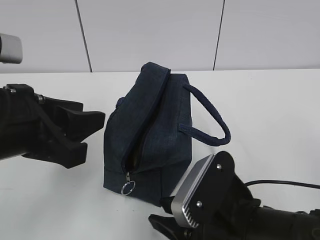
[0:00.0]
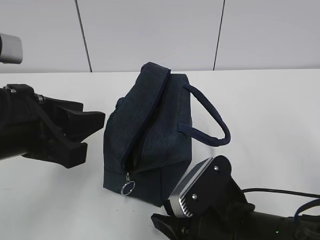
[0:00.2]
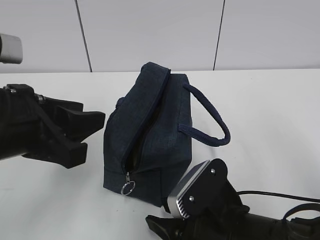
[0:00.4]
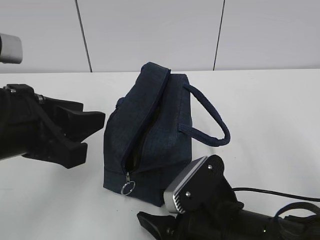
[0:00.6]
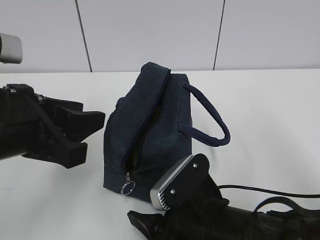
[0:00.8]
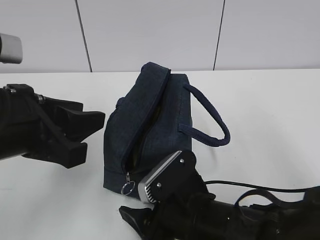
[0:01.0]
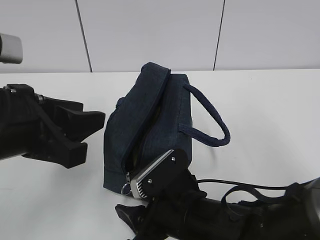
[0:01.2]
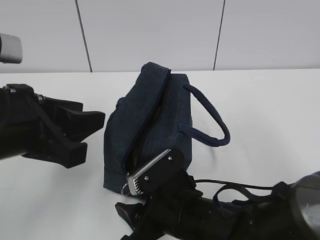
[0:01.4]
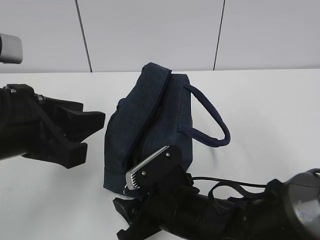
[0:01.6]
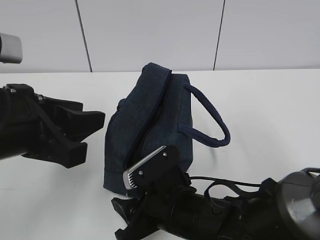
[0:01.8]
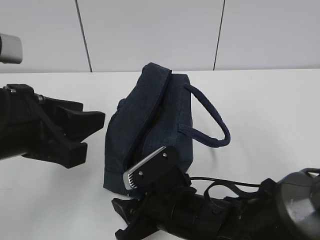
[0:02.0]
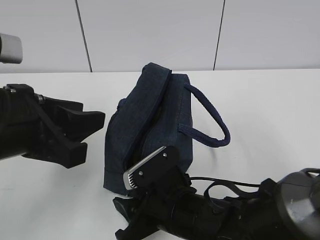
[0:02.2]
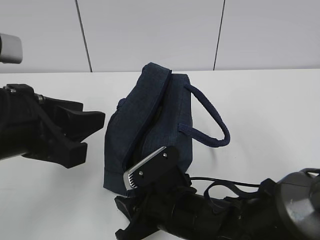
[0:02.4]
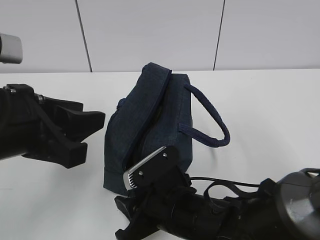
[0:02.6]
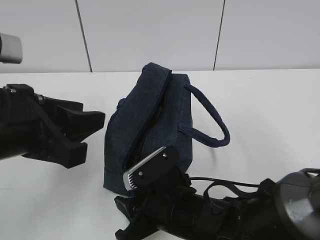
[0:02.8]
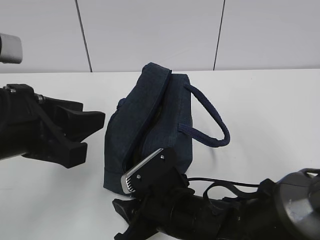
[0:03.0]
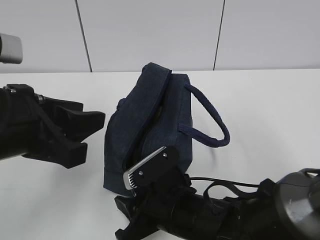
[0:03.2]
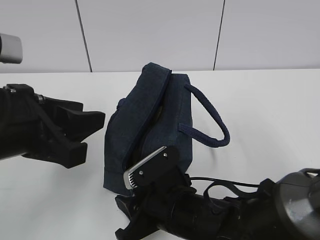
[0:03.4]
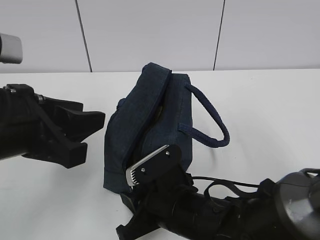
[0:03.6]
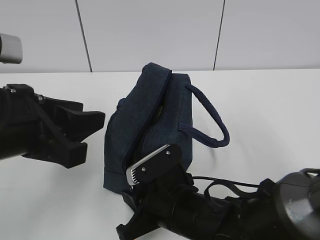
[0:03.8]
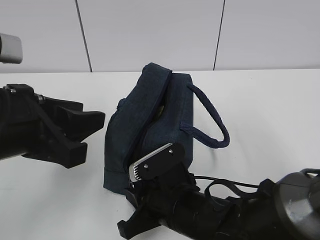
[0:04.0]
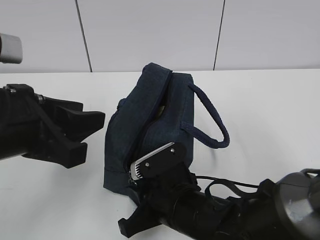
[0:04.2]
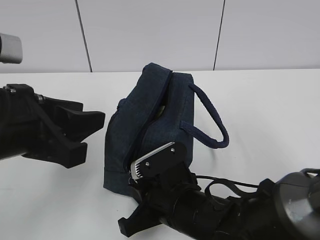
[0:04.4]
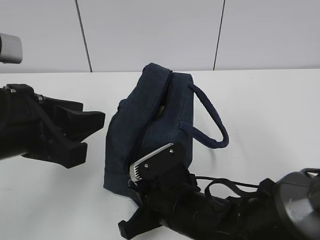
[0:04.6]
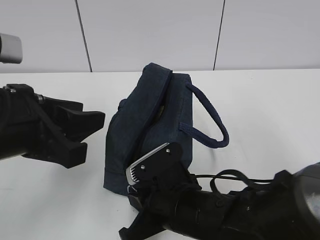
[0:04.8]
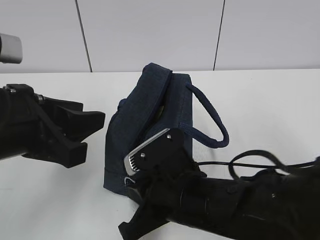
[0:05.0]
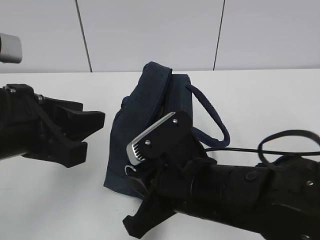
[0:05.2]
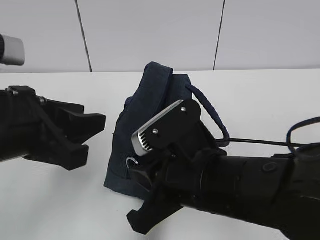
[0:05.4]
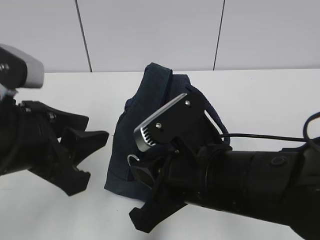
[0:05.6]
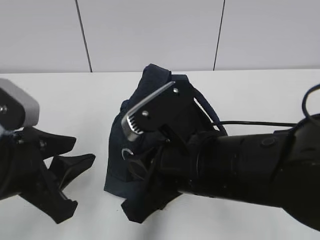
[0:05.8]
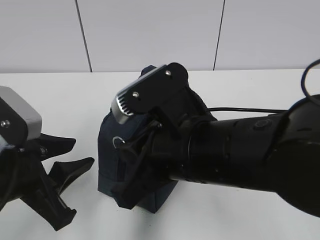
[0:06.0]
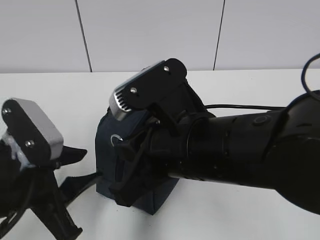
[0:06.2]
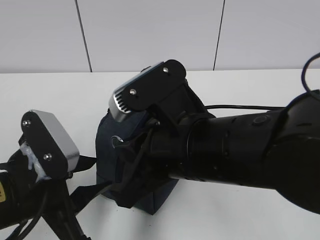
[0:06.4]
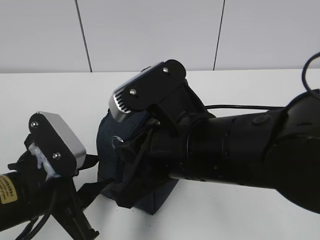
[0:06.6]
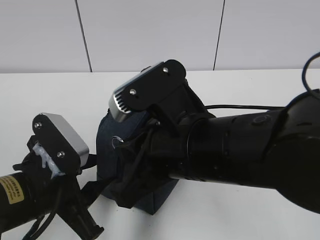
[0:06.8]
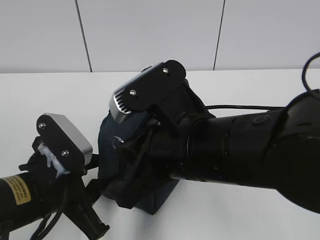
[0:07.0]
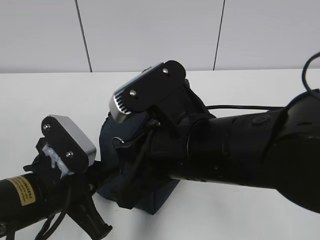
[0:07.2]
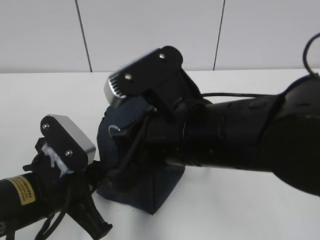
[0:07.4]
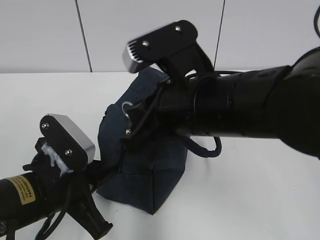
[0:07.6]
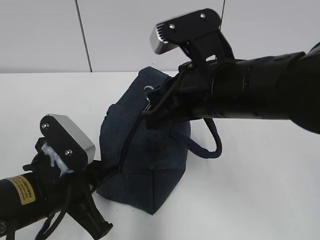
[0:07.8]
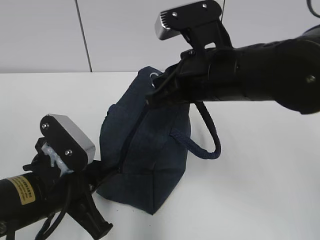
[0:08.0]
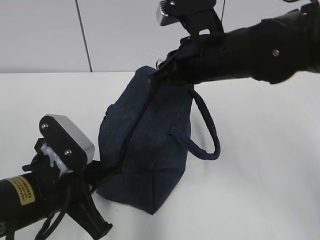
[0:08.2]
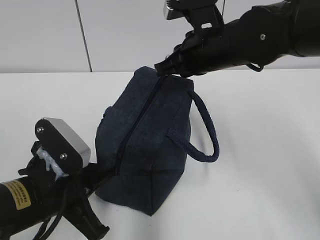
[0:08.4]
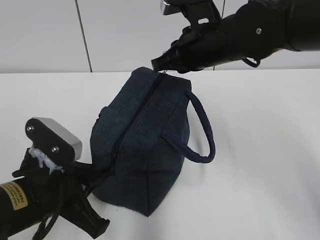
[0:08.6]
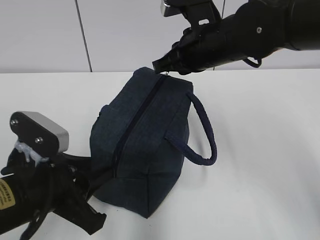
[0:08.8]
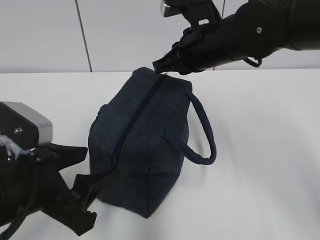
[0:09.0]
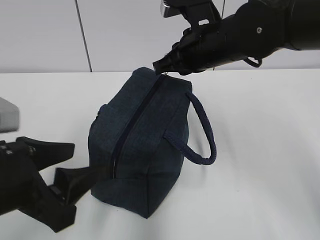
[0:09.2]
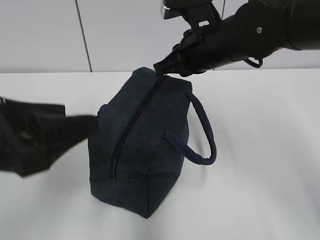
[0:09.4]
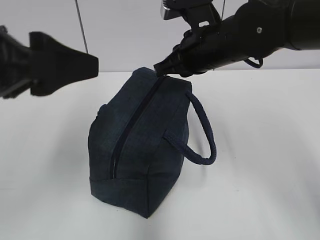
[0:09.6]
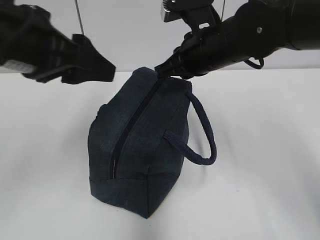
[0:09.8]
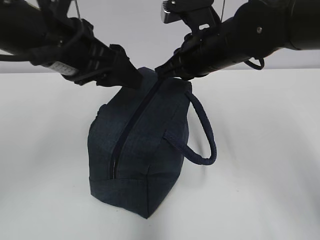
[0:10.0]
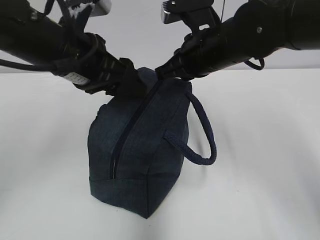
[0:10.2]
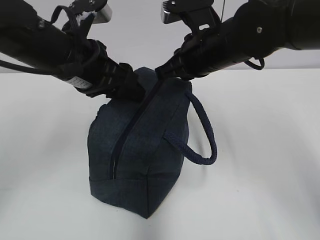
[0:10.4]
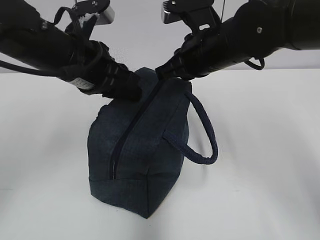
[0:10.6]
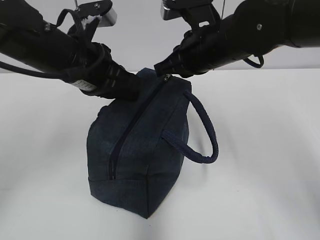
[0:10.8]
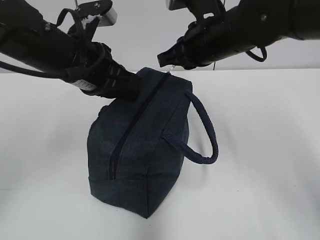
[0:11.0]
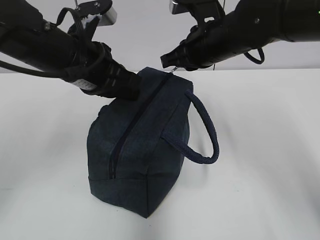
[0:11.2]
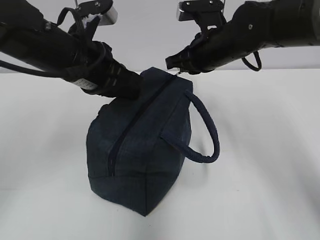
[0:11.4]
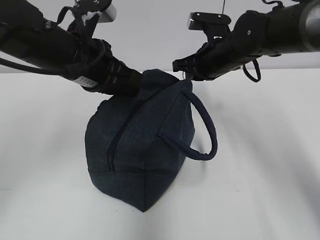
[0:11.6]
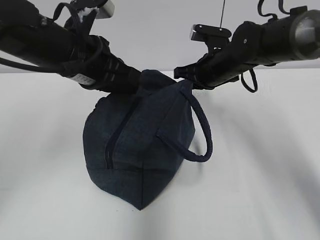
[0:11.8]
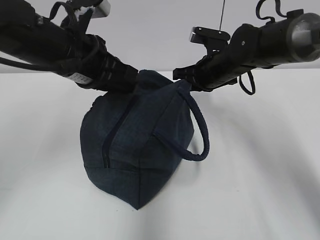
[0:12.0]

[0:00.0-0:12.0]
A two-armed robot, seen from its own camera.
Step, 0:00.0 to 0:08.6: Grab the lunch bag with your left hand.
Step, 0:08.8 to 0:11.8: Pull the zipper with your right hand.
0:00.0 to 0:01.6: The right gripper goes approximately 10 cm downward, to the left and forward, and opens its fingers.
0:01.6 to 0:03.0: The two grippers keep their place.
0:03.0 to 0:04.4: The right gripper closes up.
0:04.4 to 0:06.0: The right gripper goes roughly 15 cm upward. Meanwhile the left gripper heads downward, covering roughly 5 cm.
0:06.0 to 0:07.6: The left gripper shifts some 5 cm downward, and closes.
0:07.6 to 0:09.0: The right gripper travels forward by some 15 cm; the left gripper opens.
0:09.0 to 0:10.4: The left gripper goes roughly 20 cm forward and upward.
0:10.4 to 0:12.0: The left gripper closes up; the right gripper shifts about 10 cm forward and downward.

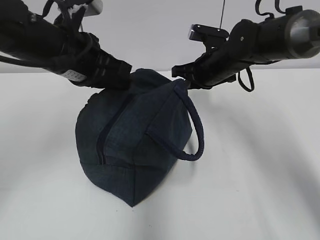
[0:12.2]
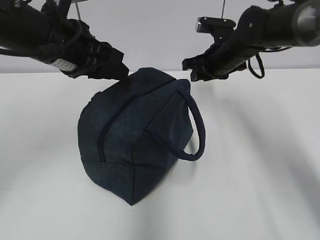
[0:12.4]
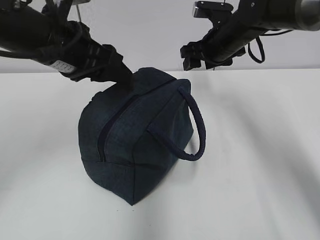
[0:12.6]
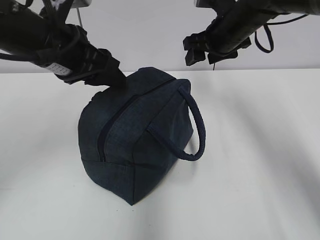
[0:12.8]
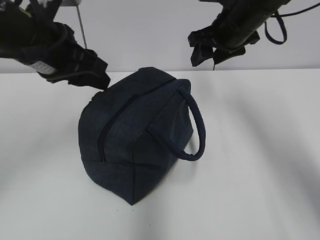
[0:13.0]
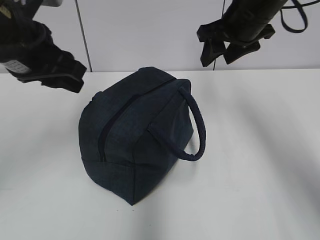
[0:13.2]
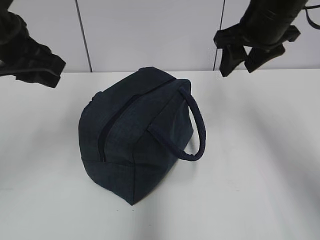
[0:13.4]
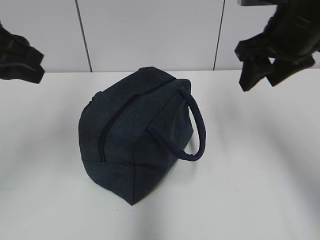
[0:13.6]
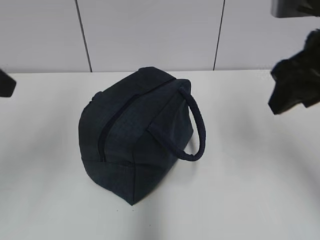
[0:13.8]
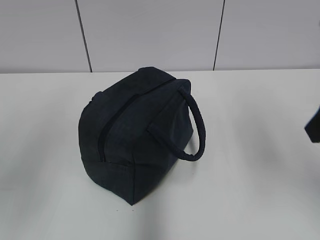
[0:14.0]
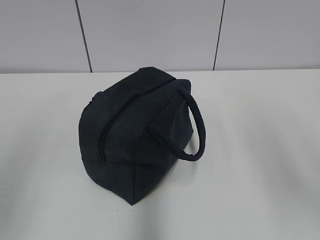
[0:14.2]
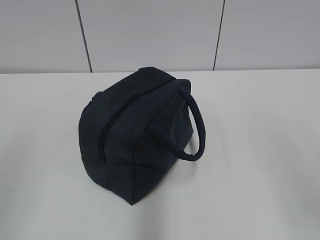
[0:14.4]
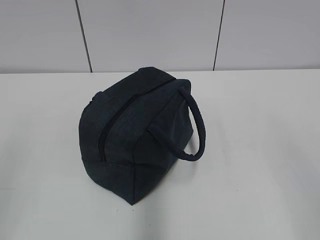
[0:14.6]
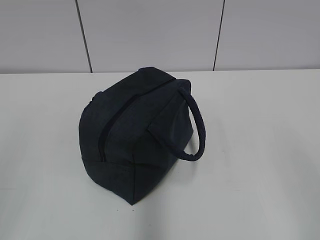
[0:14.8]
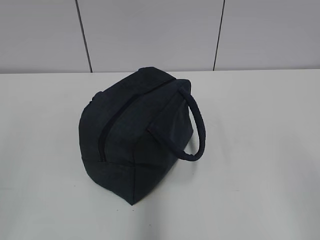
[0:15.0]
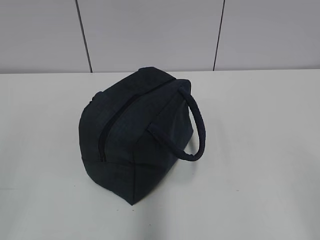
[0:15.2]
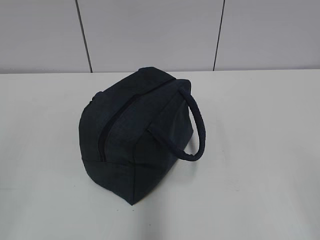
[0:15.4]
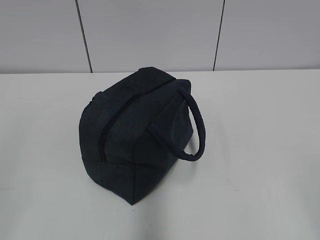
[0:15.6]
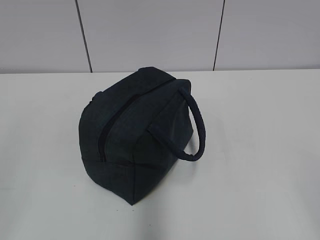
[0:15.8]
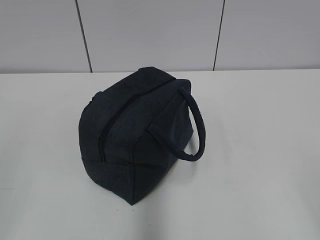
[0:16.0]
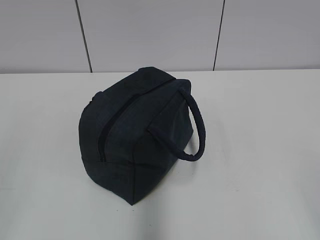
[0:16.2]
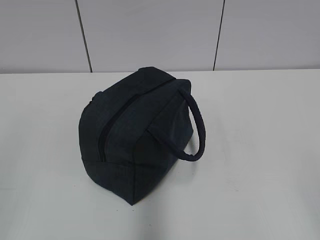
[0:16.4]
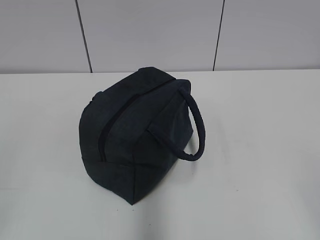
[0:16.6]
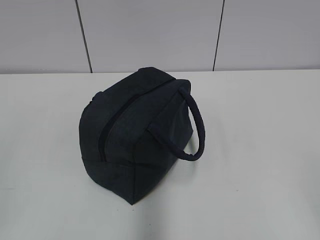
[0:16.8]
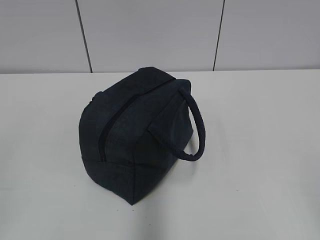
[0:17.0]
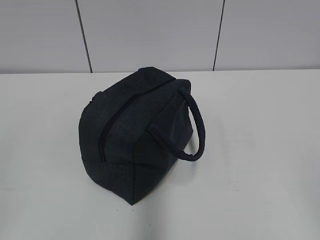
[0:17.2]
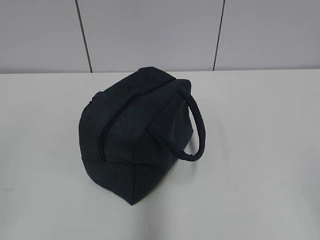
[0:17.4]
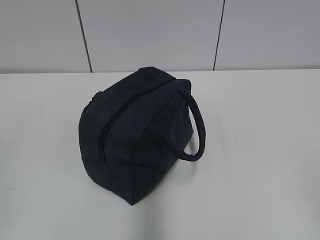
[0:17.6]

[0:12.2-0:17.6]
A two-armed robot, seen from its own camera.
0:12.2 to 0:13.6: The left gripper travels to the left, backward and upward by about 10 cm, and opens its fingers. Meanwhile the right gripper heads upward and backward, covering roughly 20 cm, and opens up.
0:13.6 to 0:15.0: The grippers both shift backward by some 25 cm.

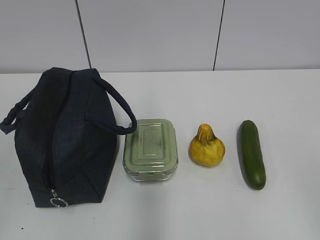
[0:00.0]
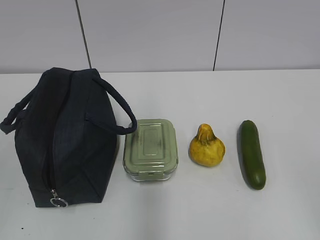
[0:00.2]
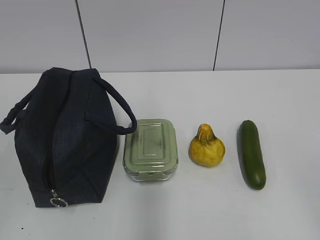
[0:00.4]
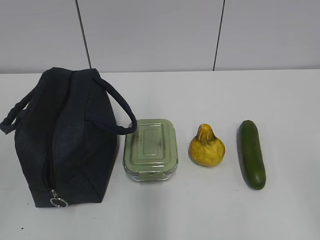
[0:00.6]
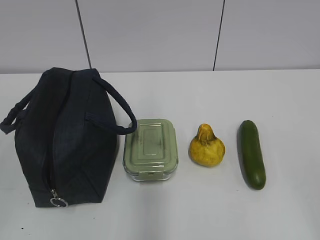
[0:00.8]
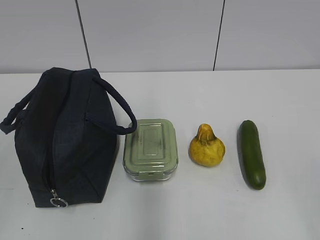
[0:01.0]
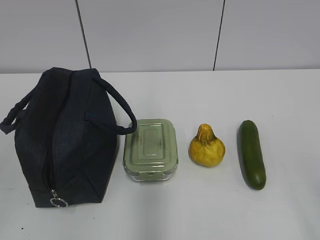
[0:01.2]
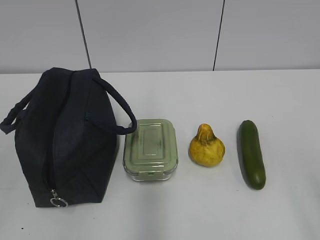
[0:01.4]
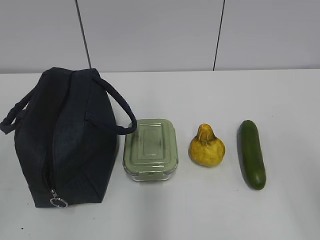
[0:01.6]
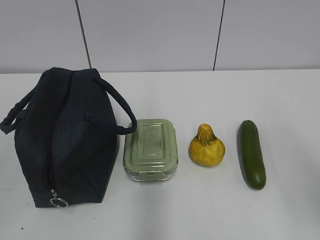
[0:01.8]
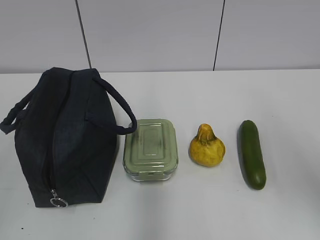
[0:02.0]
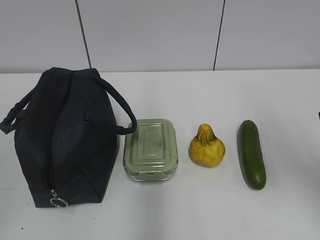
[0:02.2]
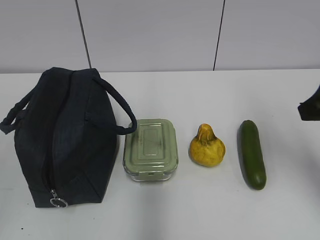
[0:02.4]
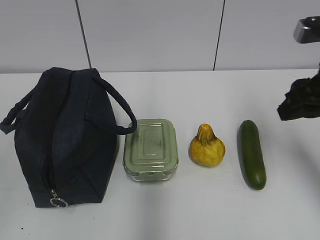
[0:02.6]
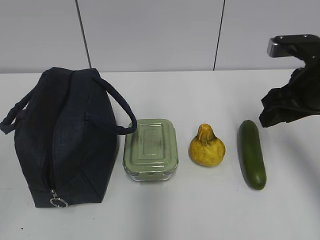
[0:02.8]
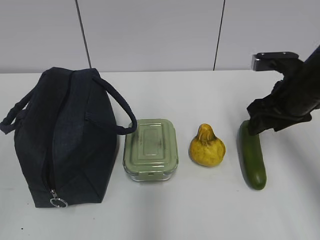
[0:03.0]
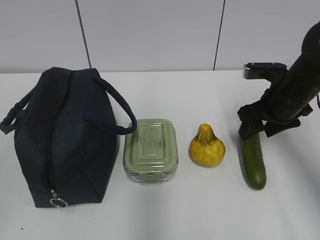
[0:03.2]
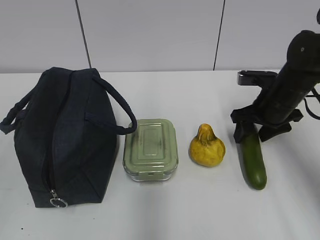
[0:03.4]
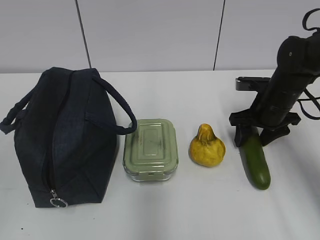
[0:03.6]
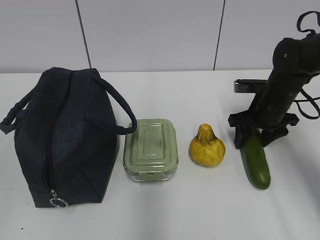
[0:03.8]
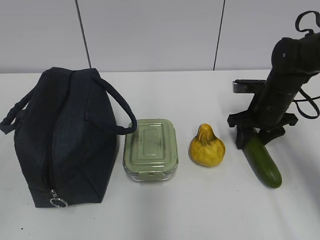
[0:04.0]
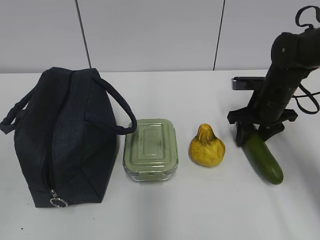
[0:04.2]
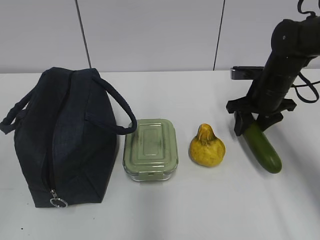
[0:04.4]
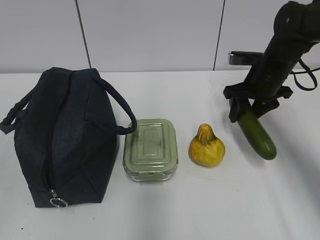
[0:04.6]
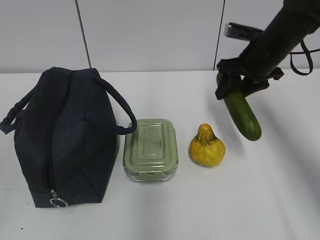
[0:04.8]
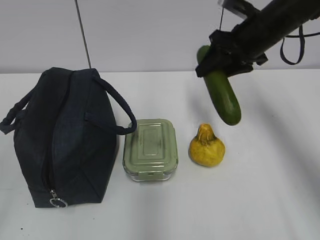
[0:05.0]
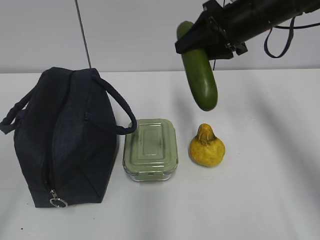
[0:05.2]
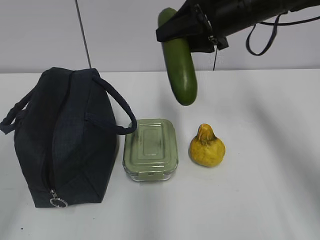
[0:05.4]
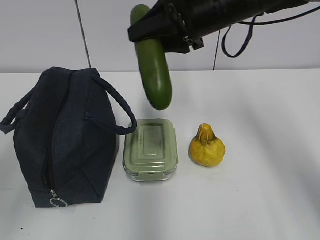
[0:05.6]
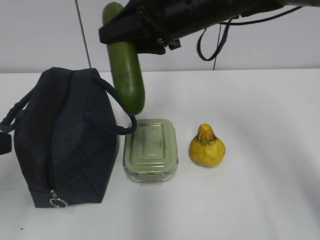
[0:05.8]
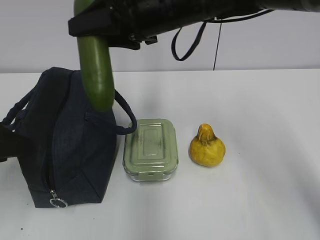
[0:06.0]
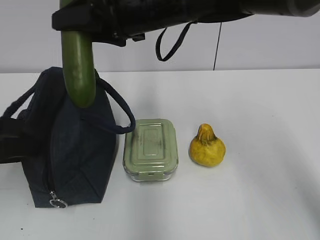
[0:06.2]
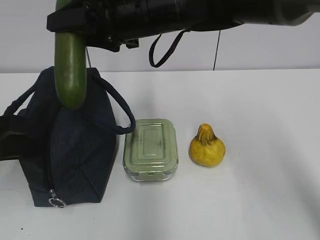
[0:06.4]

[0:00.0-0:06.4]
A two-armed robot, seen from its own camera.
Step, 0:00.0 to 0:04.0: Grab the cucumber with your right hand.
0:01.6 to 0:03.2: The right gripper is displaced forward and downward by some 35 cm.
0:03.2 to 0:04.8: The right gripper shifts roughly 10 cm upward and forward.
0:04.8 to 0:06.4: The right gripper heads to the left, covering roughly 20 cm. Meanwhile the left gripper shifts approximately 20 cm forward, and closes.
